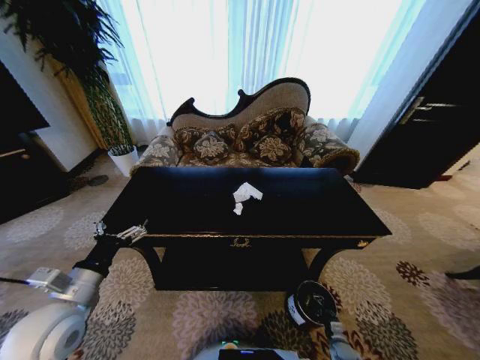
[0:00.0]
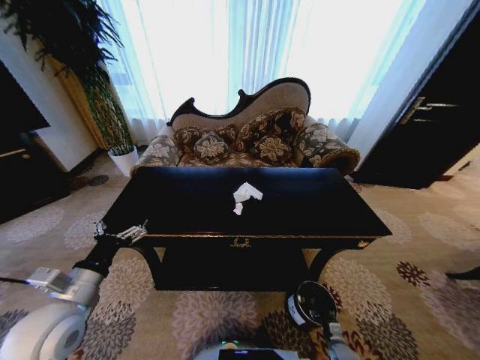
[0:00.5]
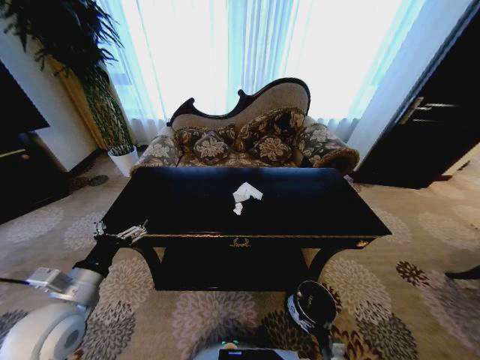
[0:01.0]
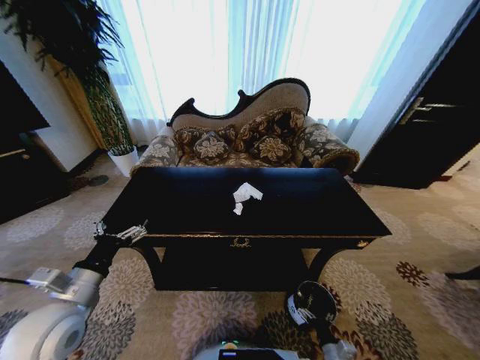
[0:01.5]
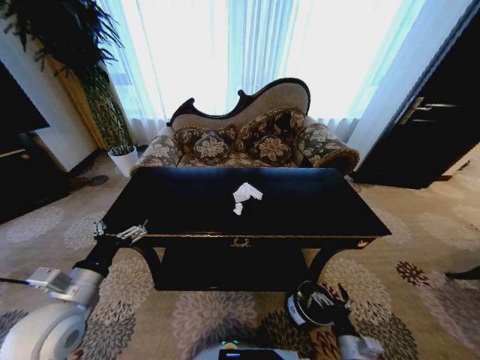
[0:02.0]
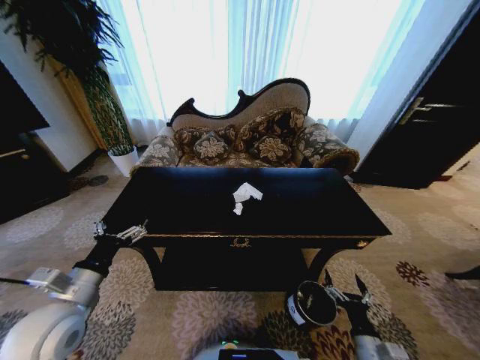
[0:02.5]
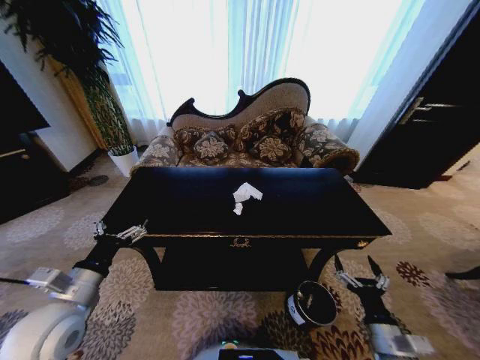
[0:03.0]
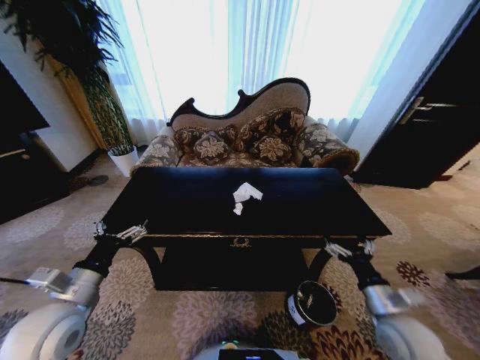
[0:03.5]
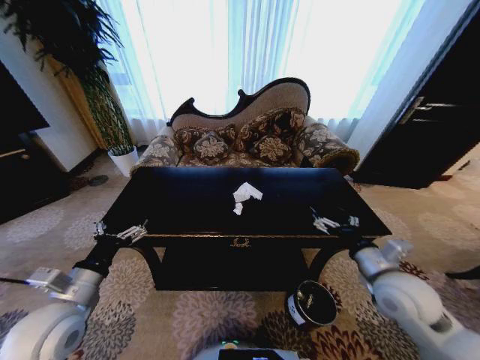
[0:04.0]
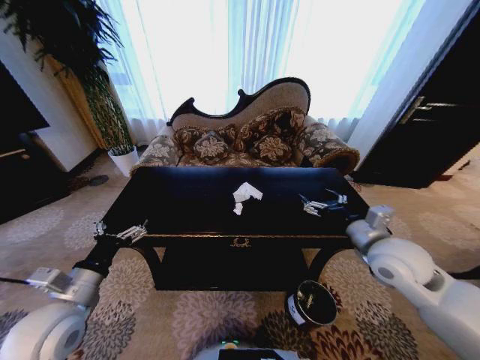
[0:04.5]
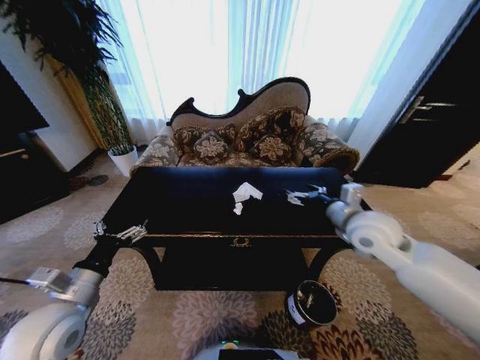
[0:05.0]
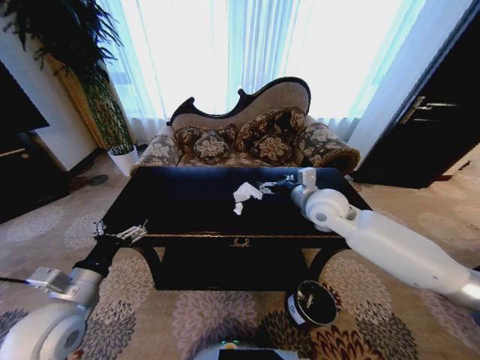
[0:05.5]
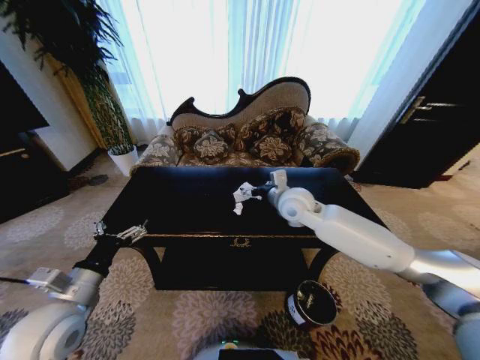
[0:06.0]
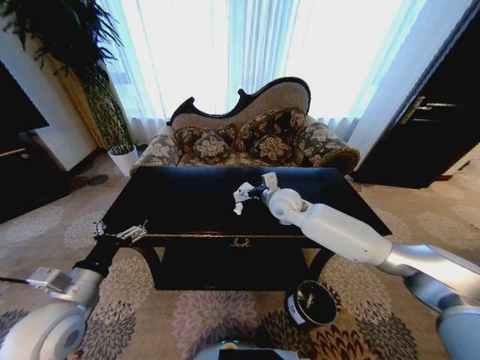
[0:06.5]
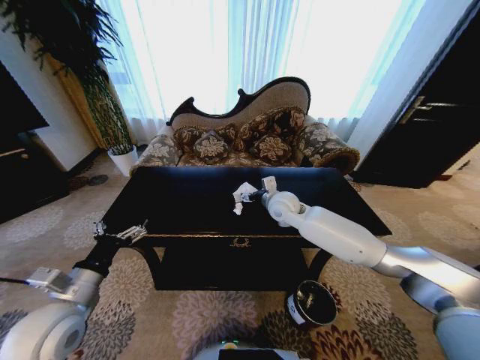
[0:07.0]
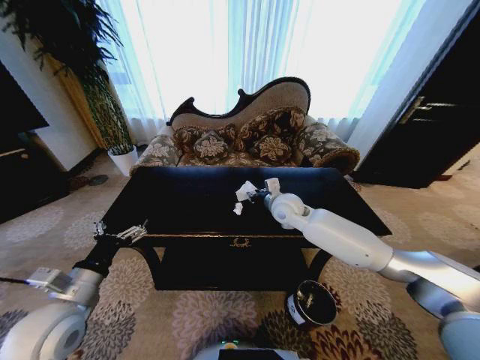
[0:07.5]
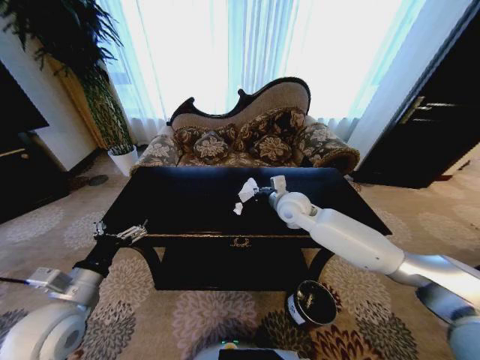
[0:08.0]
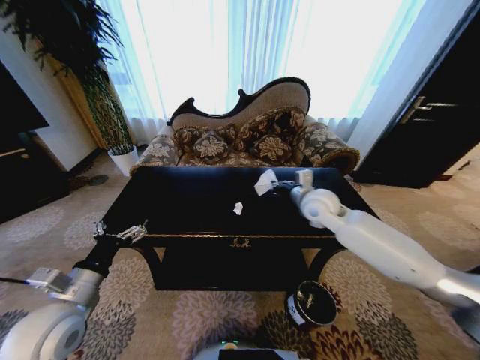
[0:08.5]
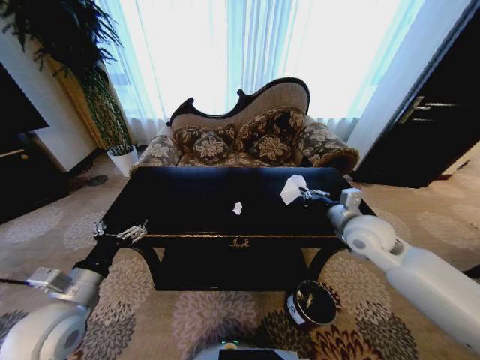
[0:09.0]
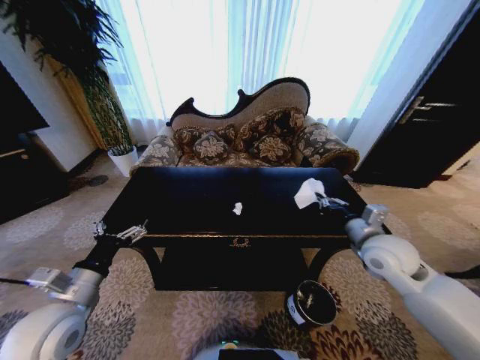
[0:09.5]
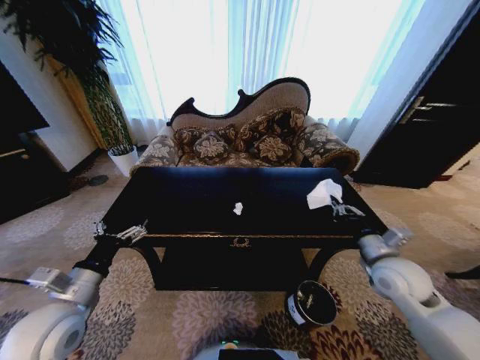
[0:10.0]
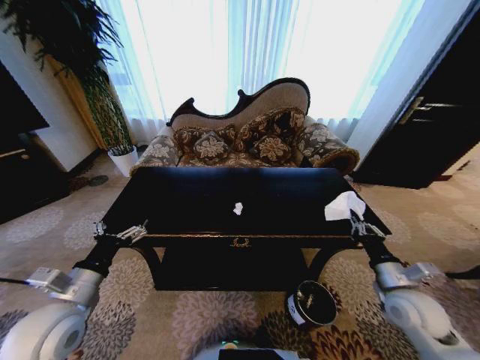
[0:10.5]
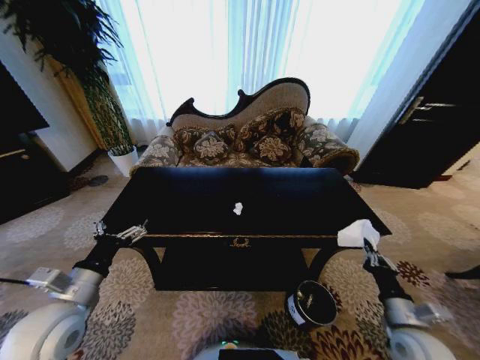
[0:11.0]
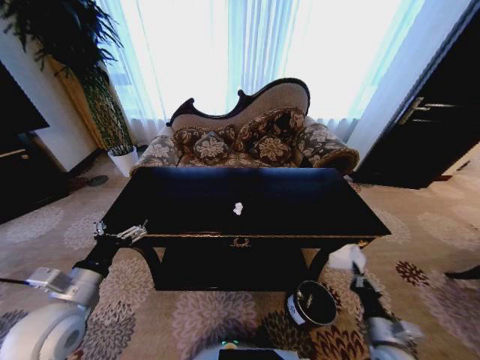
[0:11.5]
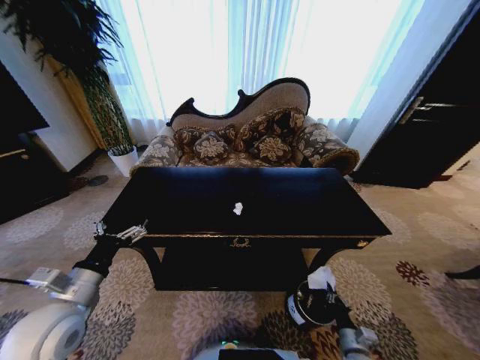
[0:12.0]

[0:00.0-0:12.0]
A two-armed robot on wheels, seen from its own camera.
Task of the whole recording: Move to the front of the table and place the trash on the table into the trash bin.
0:00.0 to 0:02.0: The right gripper is displaced upward and to the left by approximately 25 cm, and opens its fingers.
0:02.0 to 0:04.0: The right gripper travels upward and forward by roughly 30 cm.
0:04.0 to 0:06.0: The right gripper goes roughly 25 cm forward and to the left.
0:06.0 to 0:08.0: The right gripper closes.
0:08.0 to 0:10.0: The right gripper goes about 30 cm to the right and backward.
0:10.0 to 0:12.0: The right gripper travels downward and backward by approximately 35 cm.

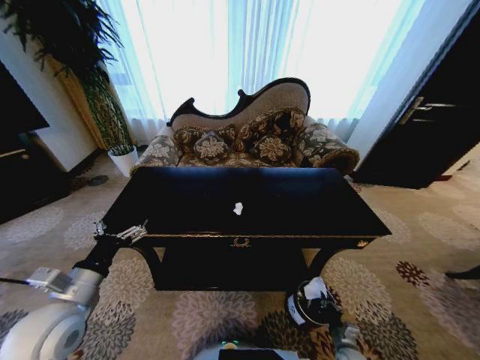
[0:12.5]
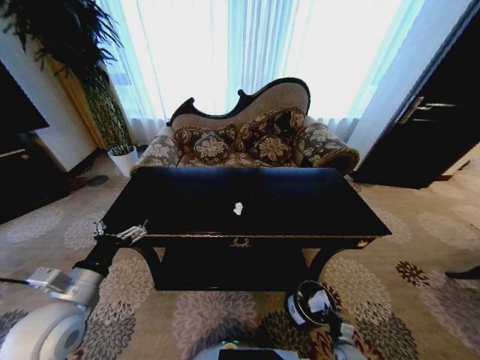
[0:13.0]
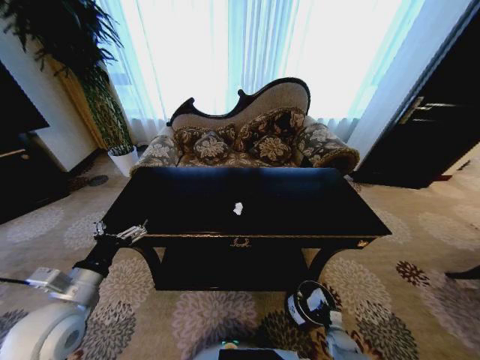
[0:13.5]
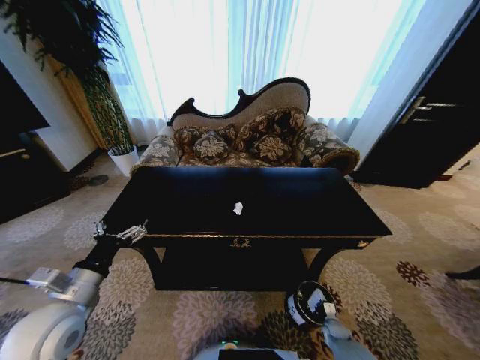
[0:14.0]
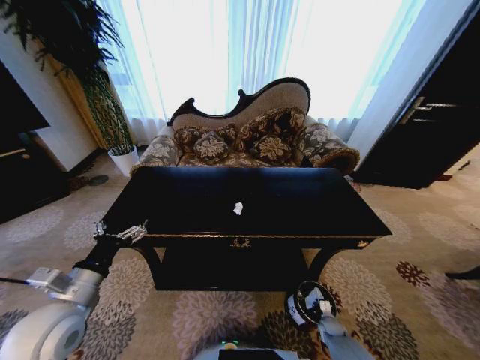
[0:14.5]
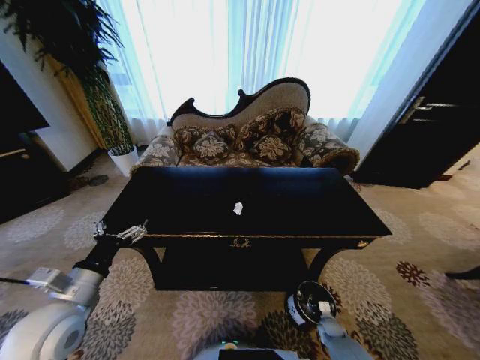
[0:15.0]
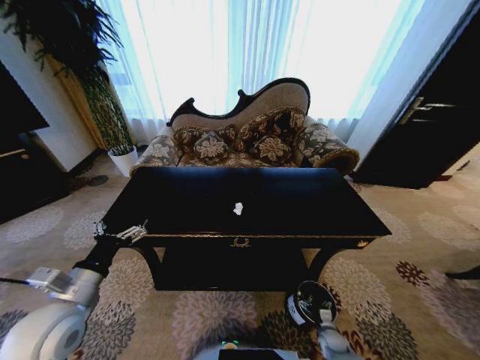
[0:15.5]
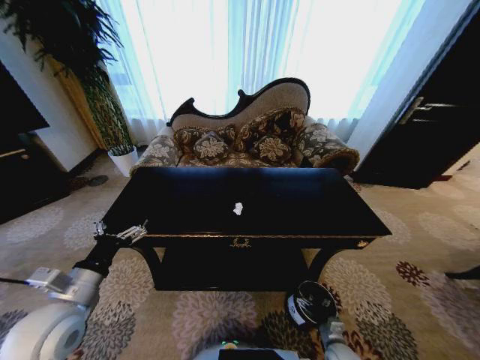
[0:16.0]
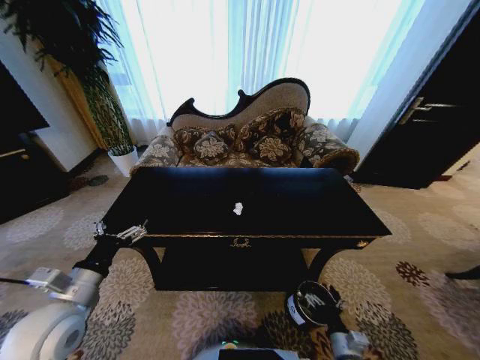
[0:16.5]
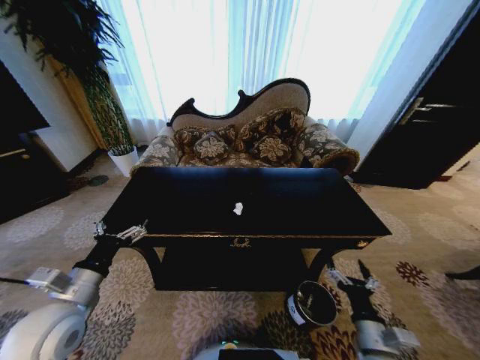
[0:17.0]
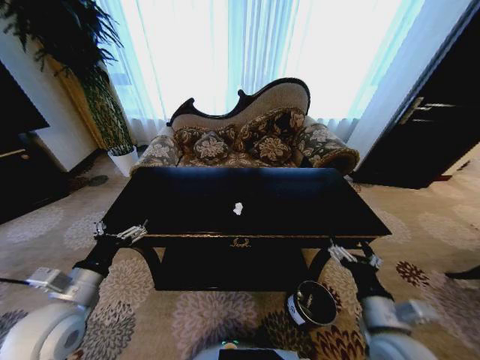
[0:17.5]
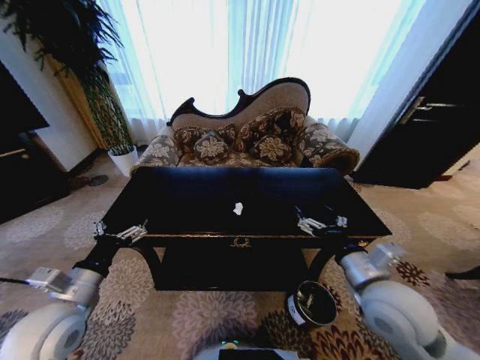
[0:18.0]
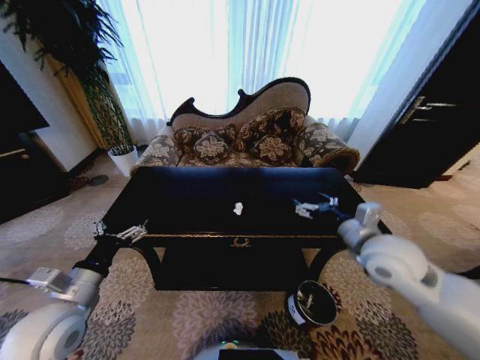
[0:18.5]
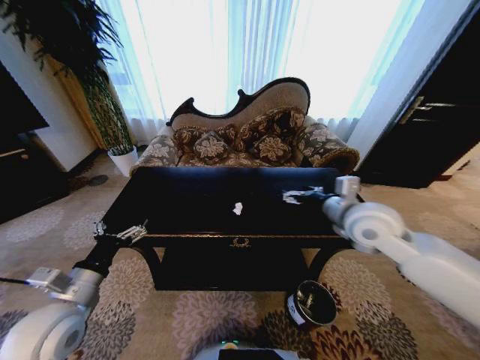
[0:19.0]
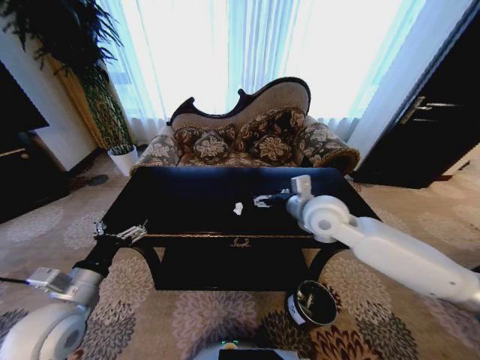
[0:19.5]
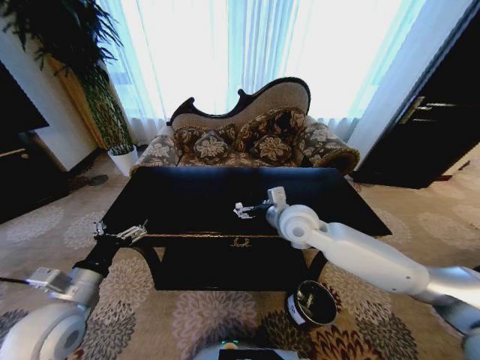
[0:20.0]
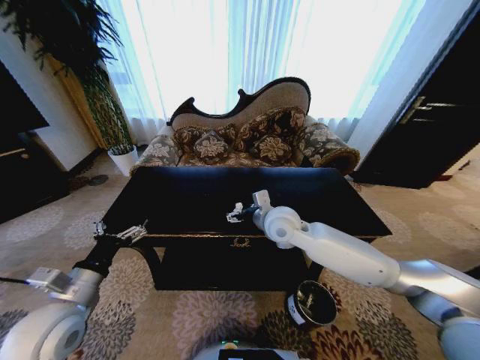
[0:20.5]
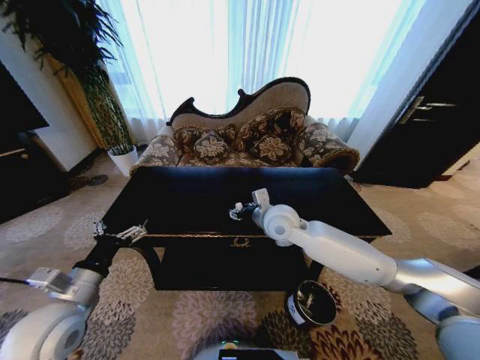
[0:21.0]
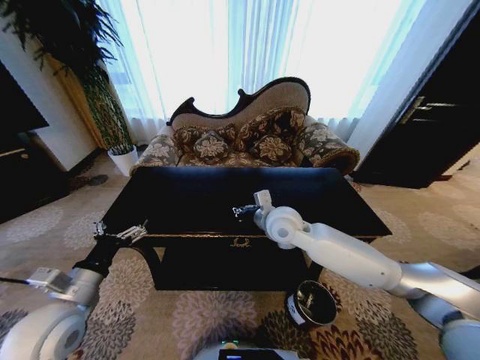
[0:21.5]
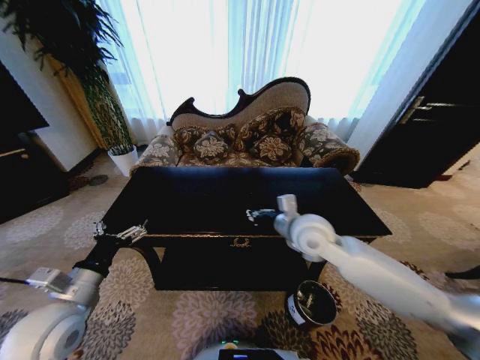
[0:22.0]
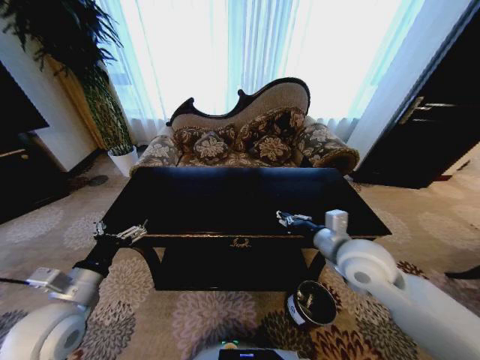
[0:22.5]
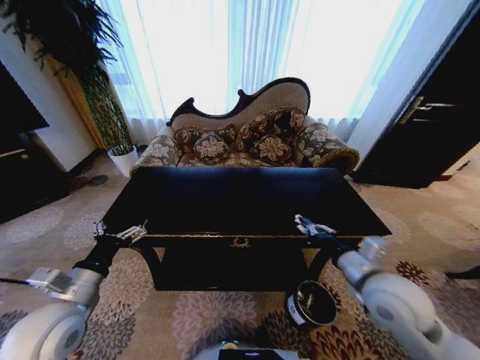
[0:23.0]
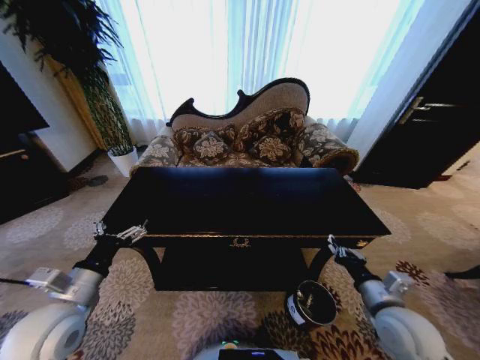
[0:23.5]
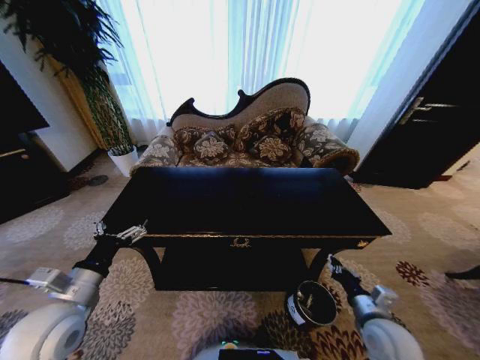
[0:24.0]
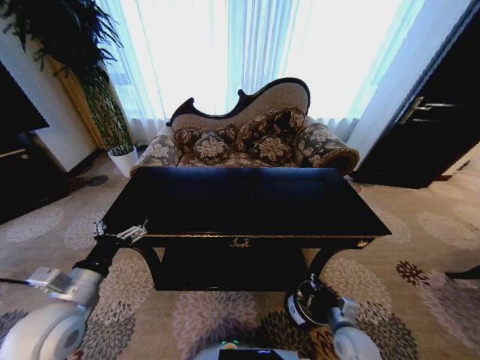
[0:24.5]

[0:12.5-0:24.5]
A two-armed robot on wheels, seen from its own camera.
Task of the whole recording: Move to the front of the table and place the trash on the table into the trash bin.
0:12.5 to 0:14.5: The right gripper heads forward and downward, covering about 10 cm.
0:14.5 to 0:16.5: The right gripper travels upward, backward and to the left by some 20 cm, and opens.
0:16.5 to 0:18.5: The right gripper heads upward and forward, covering approximately 40 cm.
0:18.5 to 0:20.5: The right gripper is displaced to the left and forward by roughly 20 cm.
0:20.5 to 0:22.5: The right gripper shifts approximately 15 cm to the right and backward, and closes up.
0:22.5 to 0:24.5: The right gripper goes roughly 30 cm downward and backward.

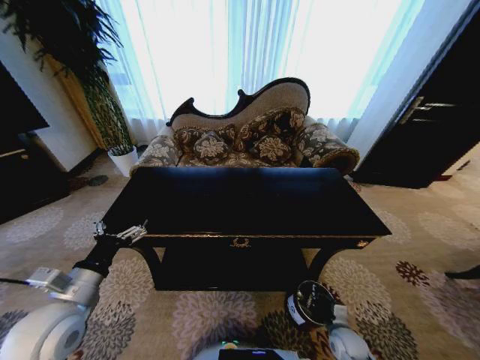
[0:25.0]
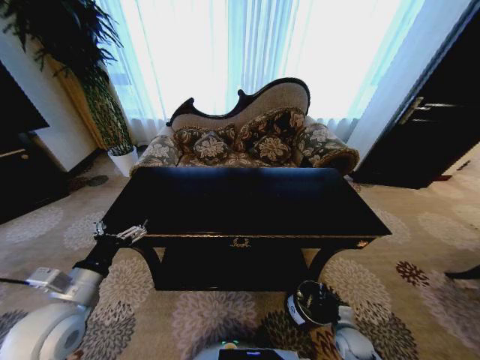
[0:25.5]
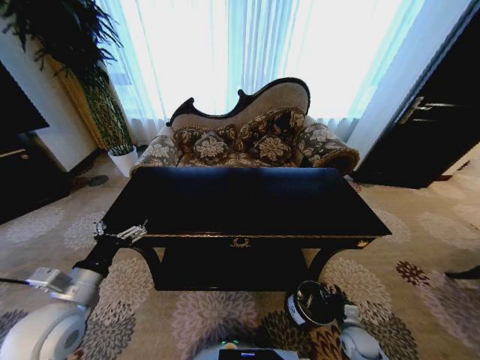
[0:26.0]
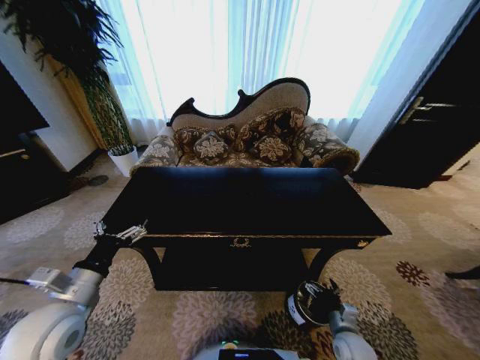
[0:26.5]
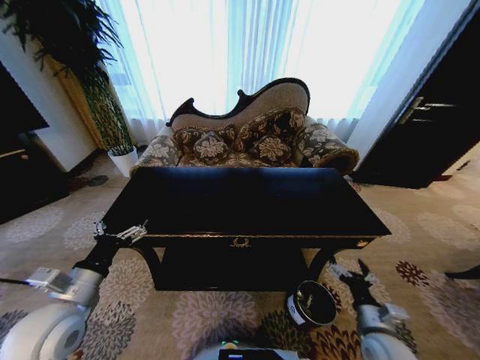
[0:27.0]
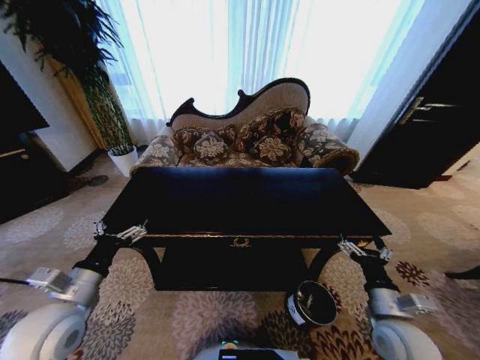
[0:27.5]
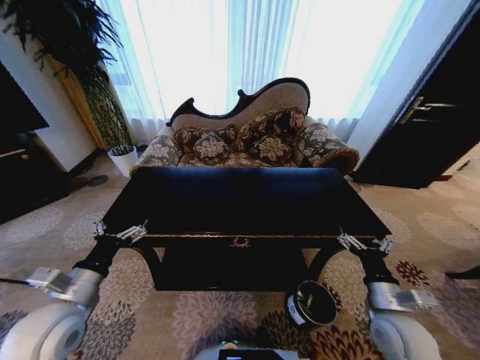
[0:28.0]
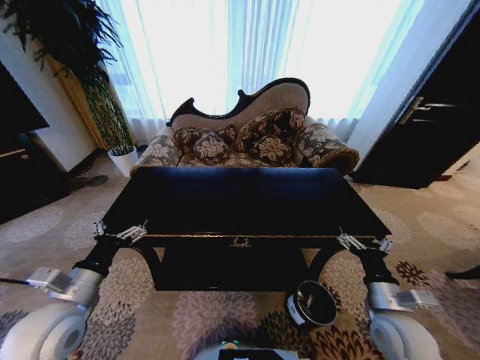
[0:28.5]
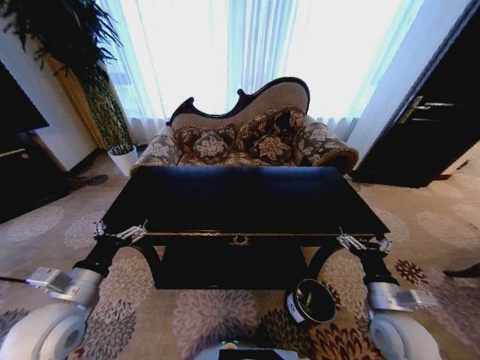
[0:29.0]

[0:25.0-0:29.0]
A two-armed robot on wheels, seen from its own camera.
Task of the whole recording: Move to the front of the table and place the trash on the table into the trash bin.
0:25.0 to 0:27.0: The right gripper is displaced upward by some 15 cm, and opens.
0:27.0 to 0:29.0: The right gripper is displaced upward by approximately 10 cm.
